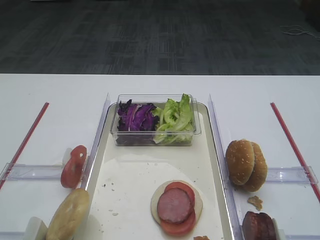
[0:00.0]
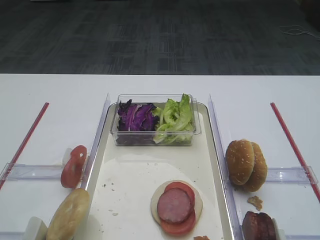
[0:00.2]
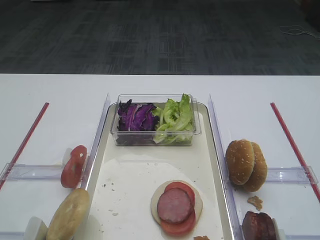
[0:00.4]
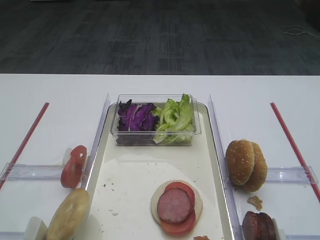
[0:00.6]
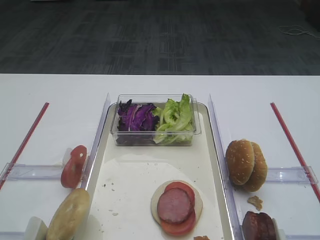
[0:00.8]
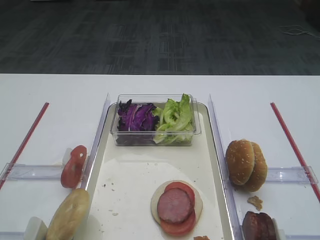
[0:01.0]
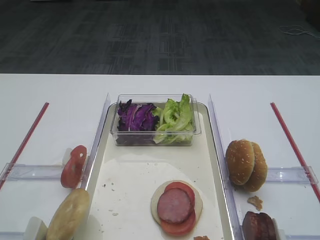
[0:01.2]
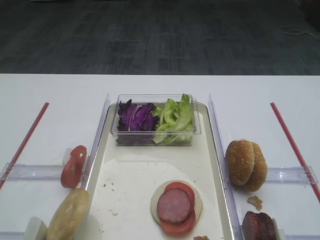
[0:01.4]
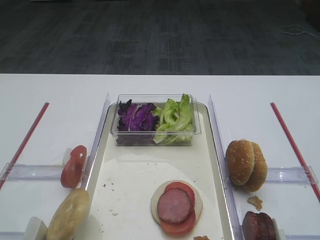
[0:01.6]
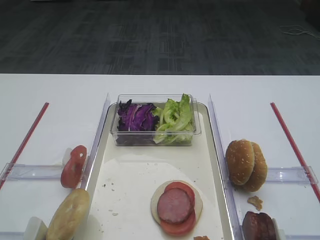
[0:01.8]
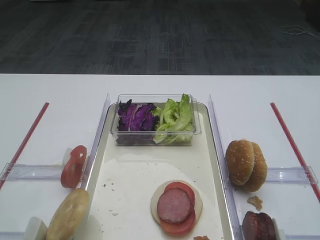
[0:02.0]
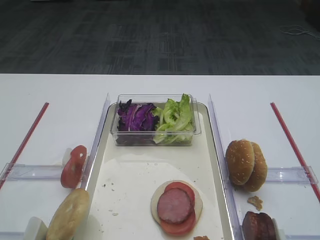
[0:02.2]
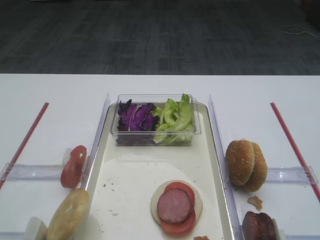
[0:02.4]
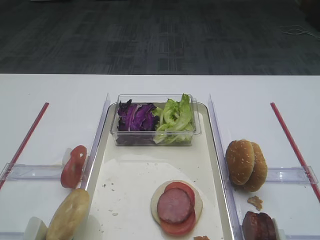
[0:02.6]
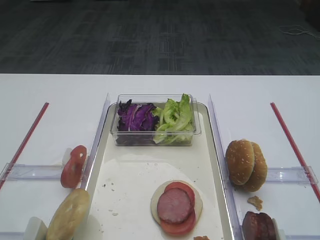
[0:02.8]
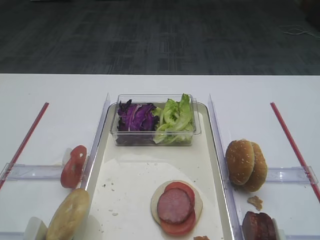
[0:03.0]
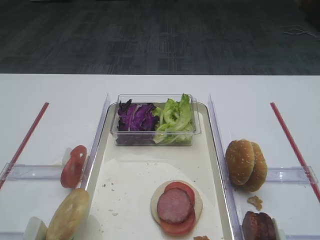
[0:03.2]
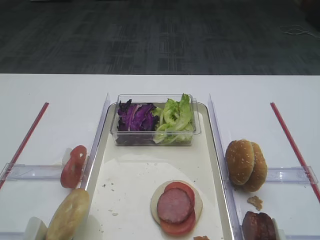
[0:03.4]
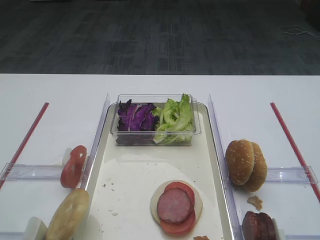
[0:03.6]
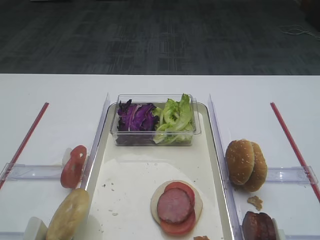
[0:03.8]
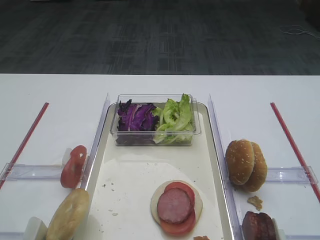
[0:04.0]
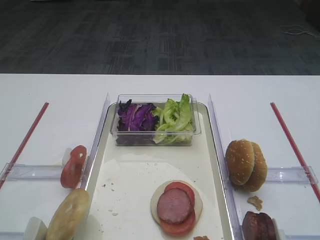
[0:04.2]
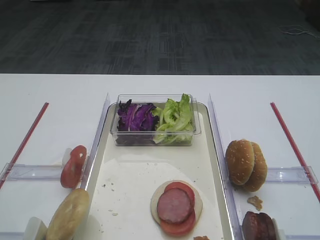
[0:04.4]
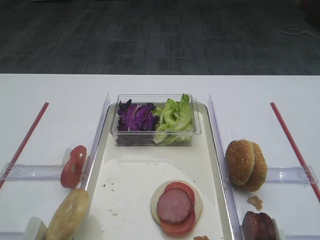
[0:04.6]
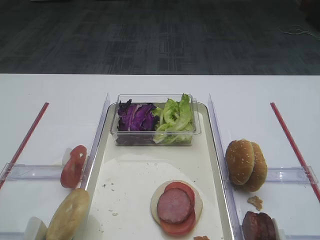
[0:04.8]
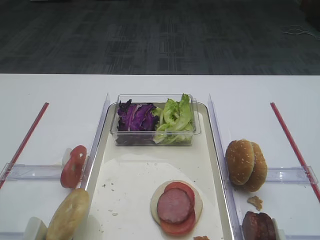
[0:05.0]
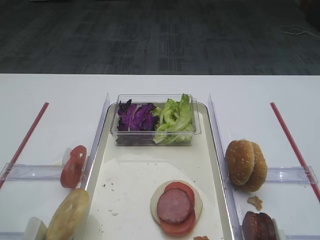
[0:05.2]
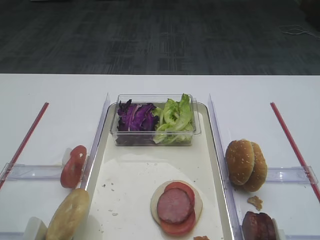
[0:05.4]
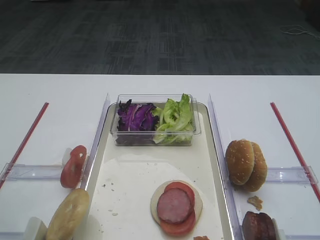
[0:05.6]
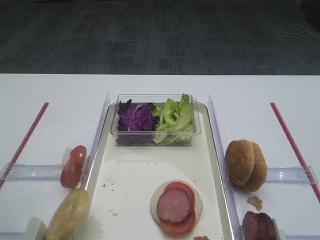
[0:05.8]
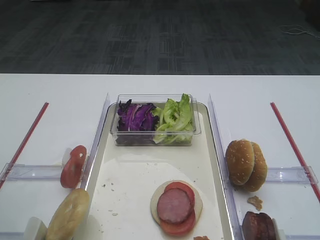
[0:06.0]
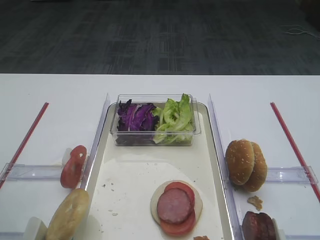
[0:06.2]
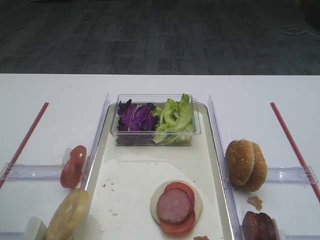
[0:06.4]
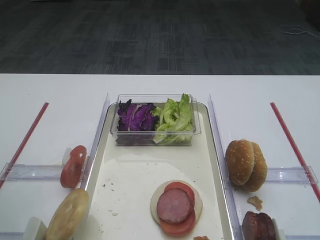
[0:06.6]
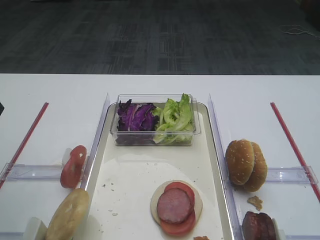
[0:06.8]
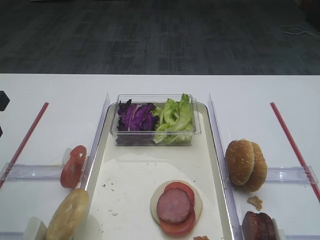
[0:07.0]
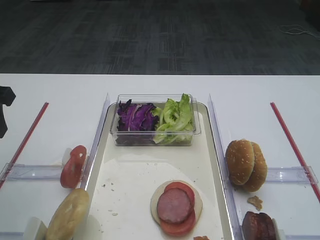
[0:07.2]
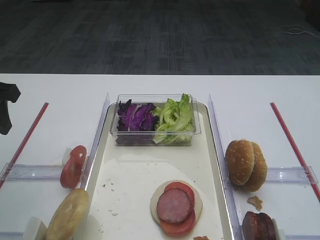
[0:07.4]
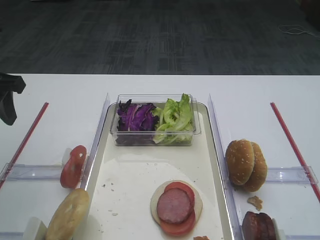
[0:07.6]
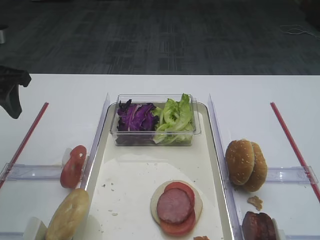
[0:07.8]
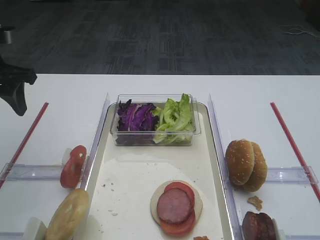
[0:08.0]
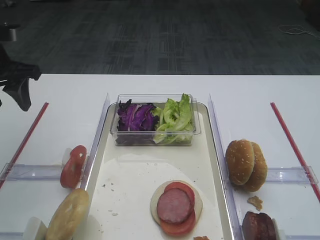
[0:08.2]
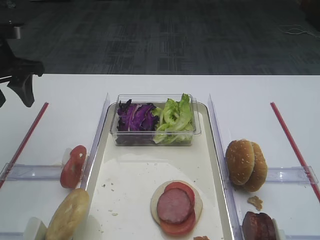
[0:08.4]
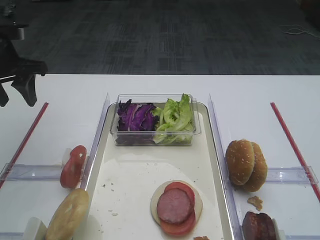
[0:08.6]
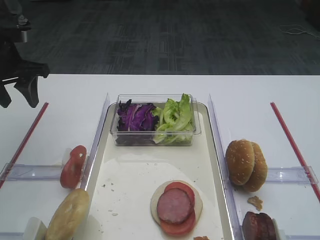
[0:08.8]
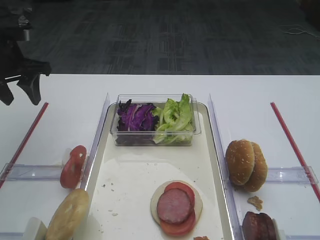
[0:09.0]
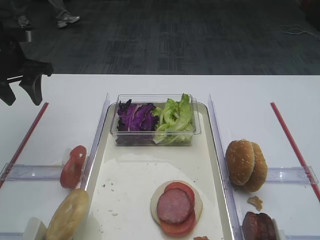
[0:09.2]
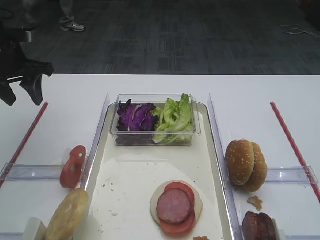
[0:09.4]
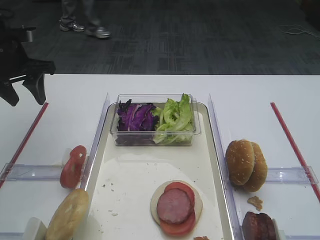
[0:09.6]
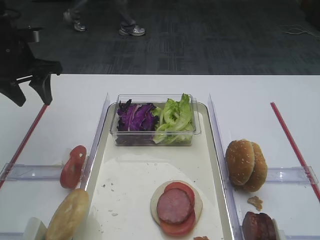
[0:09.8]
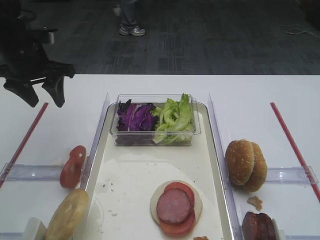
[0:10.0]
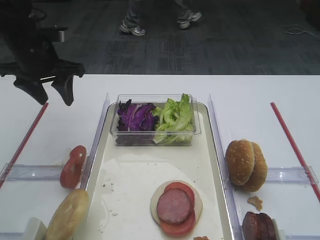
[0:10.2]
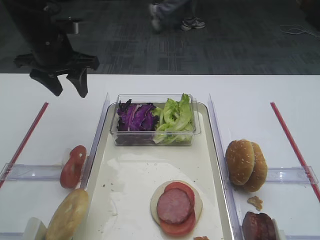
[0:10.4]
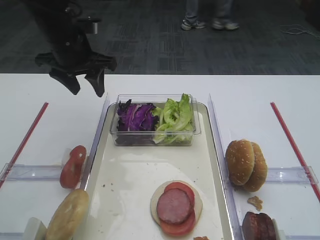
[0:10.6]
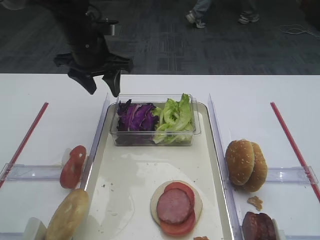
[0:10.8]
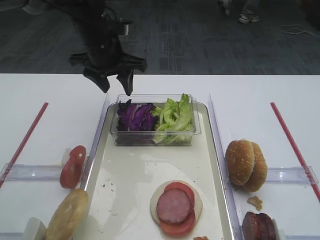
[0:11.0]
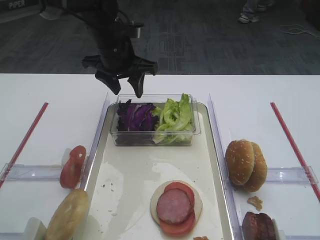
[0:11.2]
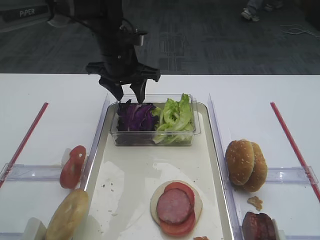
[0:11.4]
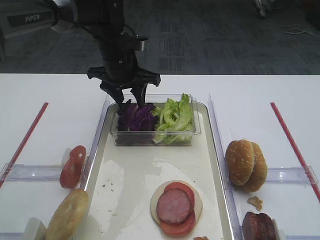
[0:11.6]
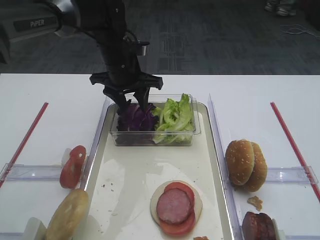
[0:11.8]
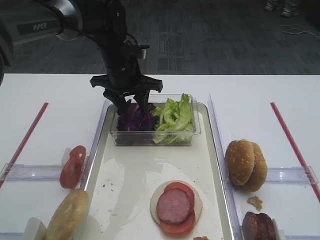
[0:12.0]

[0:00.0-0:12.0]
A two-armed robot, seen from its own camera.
0:01.6 to 0:03.0: Neither gripper changes place.
0:06.0 to 0:07.6: The left gripper shifts about 10 cm forward.
0:07.6 to 0:09.0: The left gripper moves forward, some 10 cm.
0:09.0 to 0:10.4: The left gripper heads to the right, covering roughly 10 cm.
0:10.4 to 0:12.0: The left gripper shifts roughly 15 cm to the right and downward.

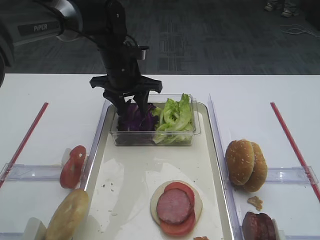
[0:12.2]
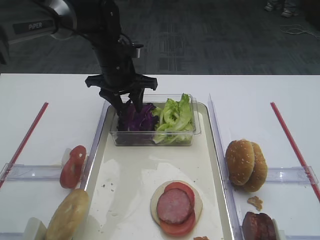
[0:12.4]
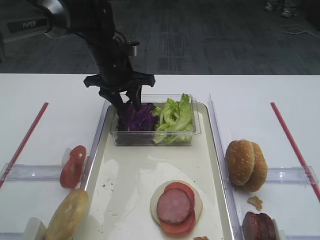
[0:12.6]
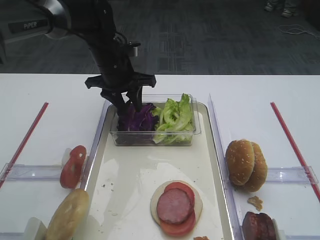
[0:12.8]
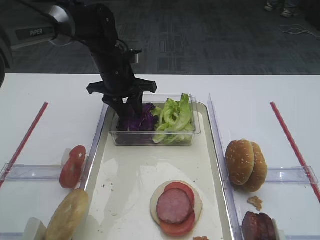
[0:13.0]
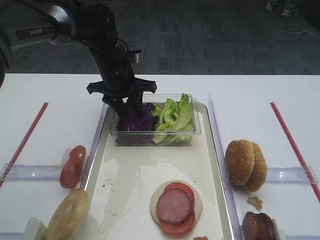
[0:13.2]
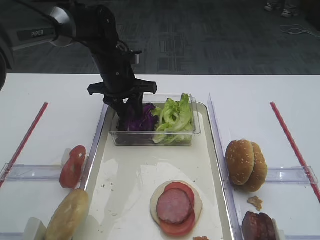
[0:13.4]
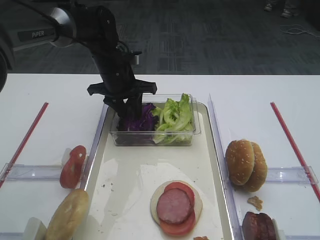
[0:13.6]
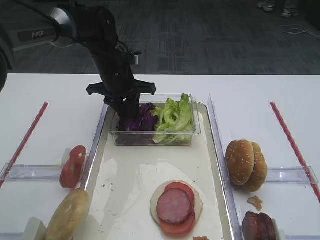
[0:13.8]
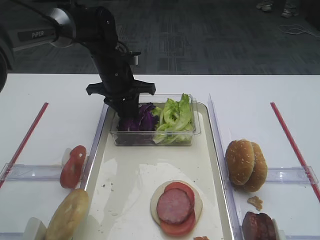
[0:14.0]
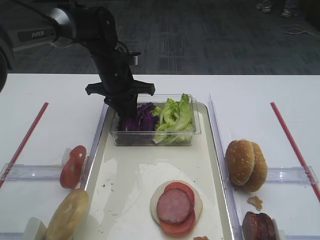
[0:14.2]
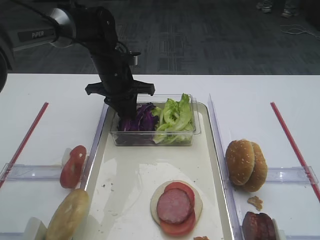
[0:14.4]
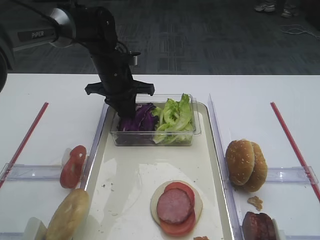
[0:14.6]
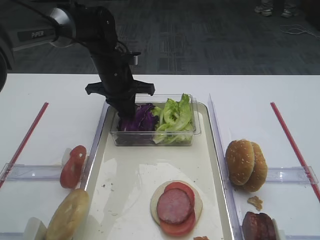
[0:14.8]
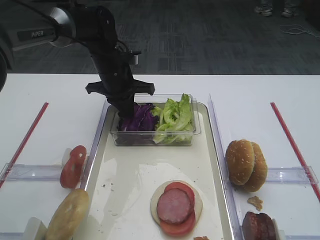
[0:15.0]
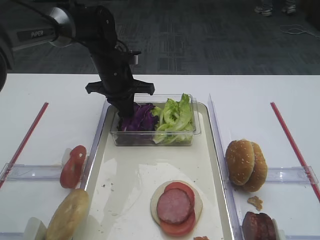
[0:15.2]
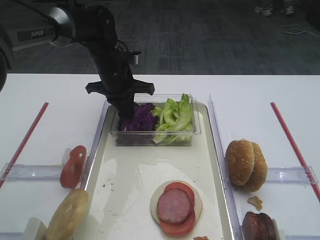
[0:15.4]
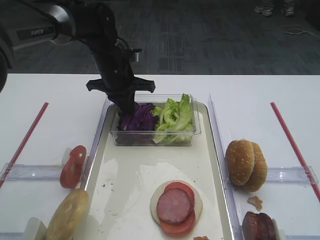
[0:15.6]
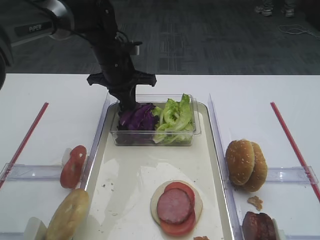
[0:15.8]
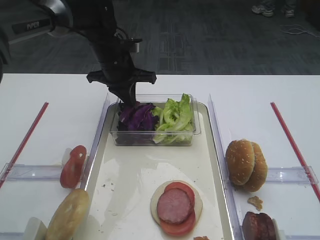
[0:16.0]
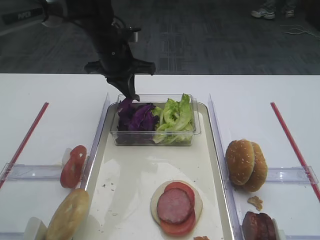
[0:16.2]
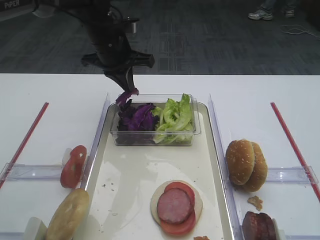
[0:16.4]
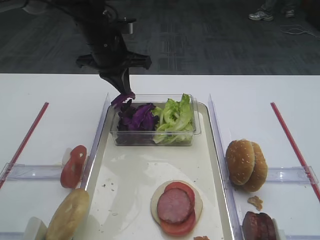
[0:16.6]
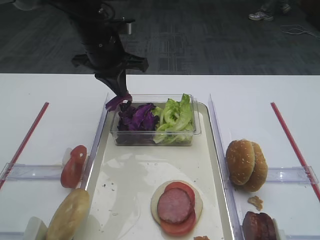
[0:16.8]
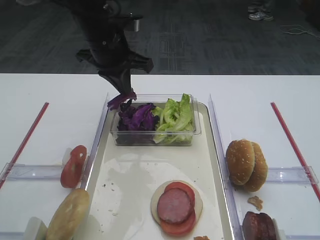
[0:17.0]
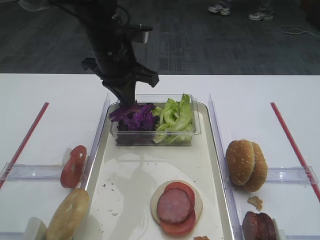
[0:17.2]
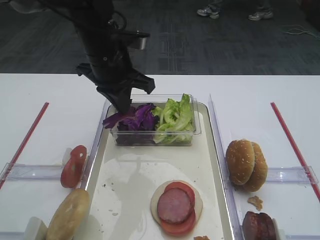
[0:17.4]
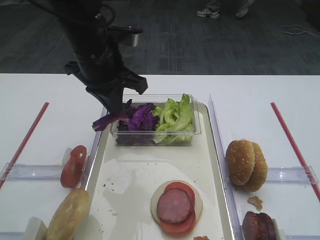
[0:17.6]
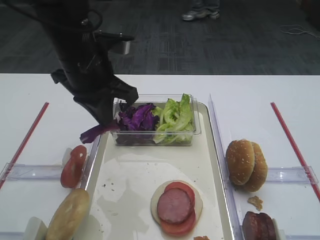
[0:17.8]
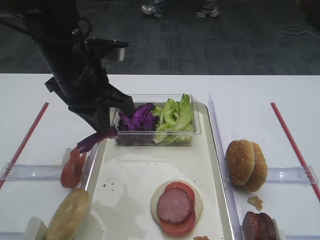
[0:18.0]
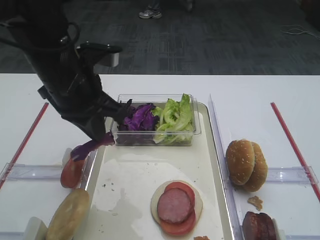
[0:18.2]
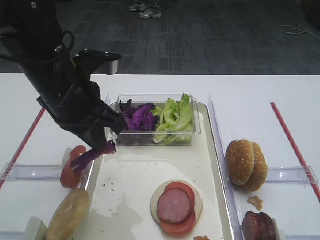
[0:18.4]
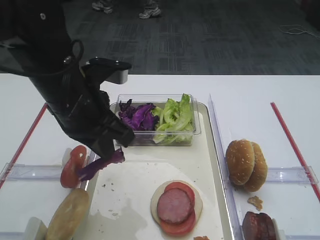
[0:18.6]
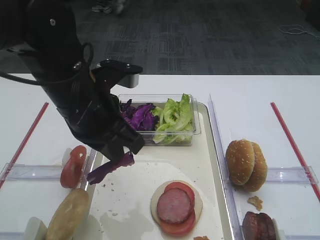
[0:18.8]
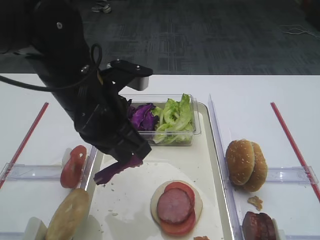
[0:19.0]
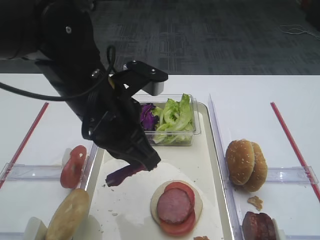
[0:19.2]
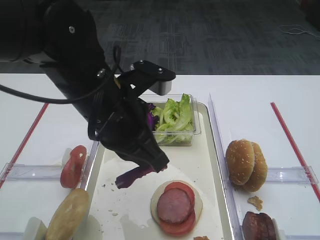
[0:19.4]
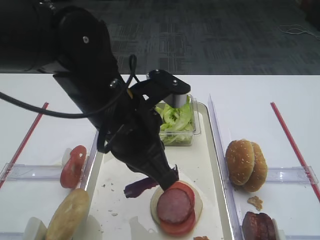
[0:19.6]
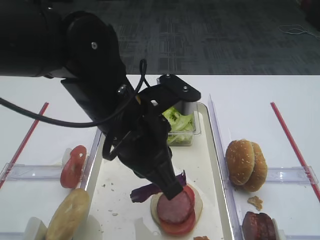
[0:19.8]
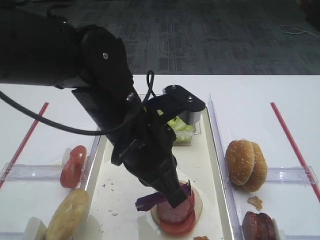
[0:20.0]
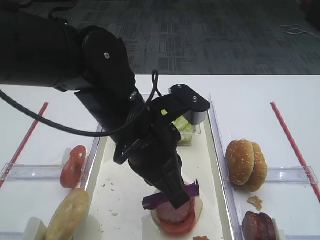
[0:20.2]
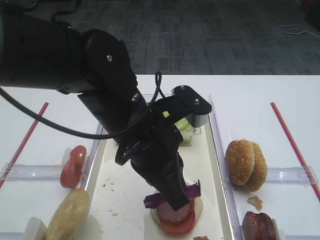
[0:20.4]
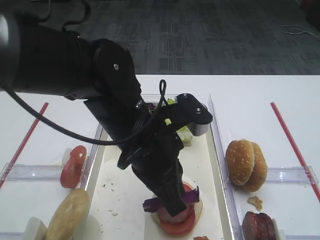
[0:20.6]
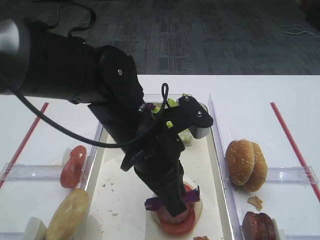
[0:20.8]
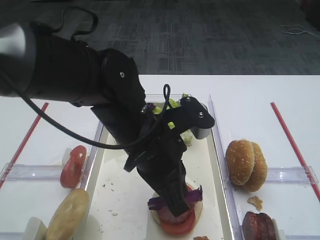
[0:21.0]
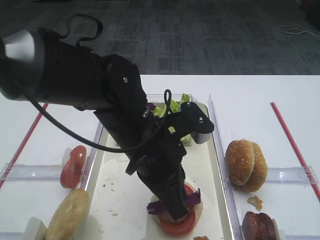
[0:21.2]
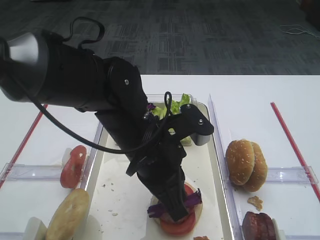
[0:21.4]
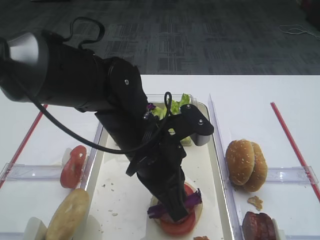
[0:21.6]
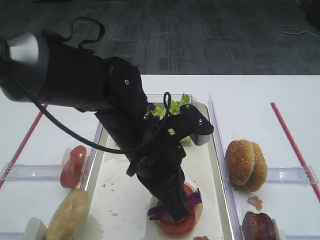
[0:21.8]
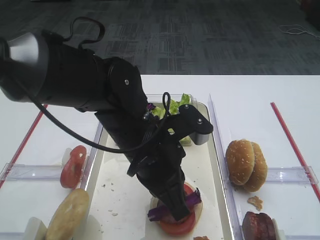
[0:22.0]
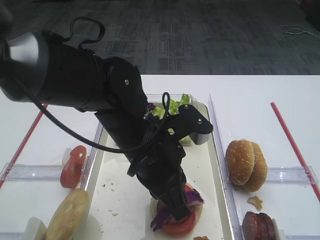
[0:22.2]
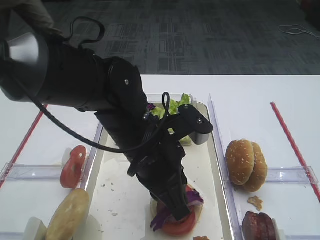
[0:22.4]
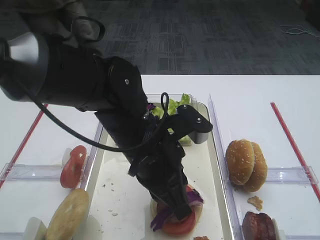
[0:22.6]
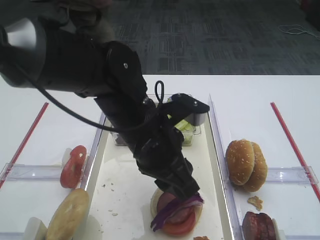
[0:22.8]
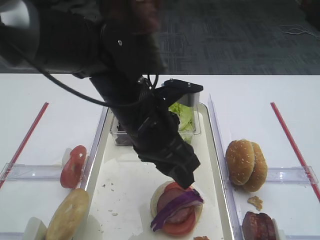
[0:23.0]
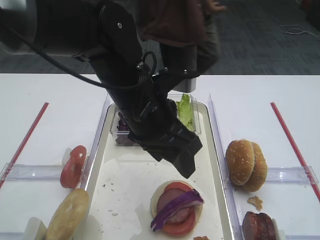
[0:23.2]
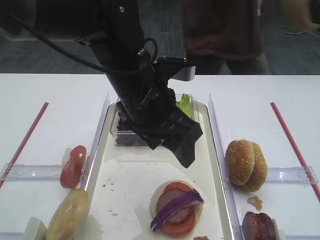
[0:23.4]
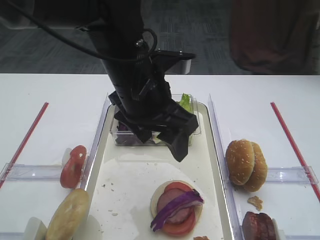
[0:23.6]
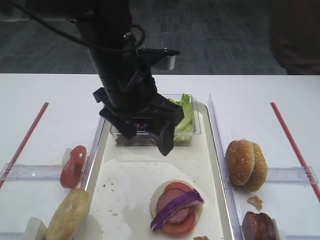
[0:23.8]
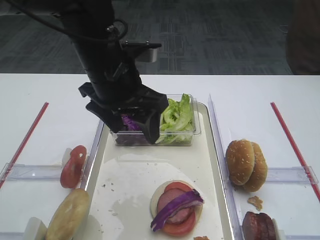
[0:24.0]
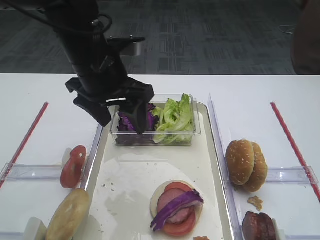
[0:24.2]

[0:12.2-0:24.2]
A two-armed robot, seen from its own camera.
Step, 0:12.2 to 0:16.0: Pick up the purple cabbage with the left gripper.
0:12.2 to 0:13.8: The grippers make only small movements.
0:15.2 to 0:16.6: The left gripper travels upward by about 5 cm.
0:16.6 to 0:18.2: The left gripper goes some 15 cm backward.
0:18.2 to 0:19.8: The left gripper shifts about 10 cm to the right and backward.
0:19.8 to 0:21.2: The left gripper ends up approximately 5 cm from where it was.
0:21.2 to 0:22.6: The grippers make only small movements.
0:22.6 to 0:24.2: The left gripper is displaced forward, to the left and upward by some 15 cm, and opens.
